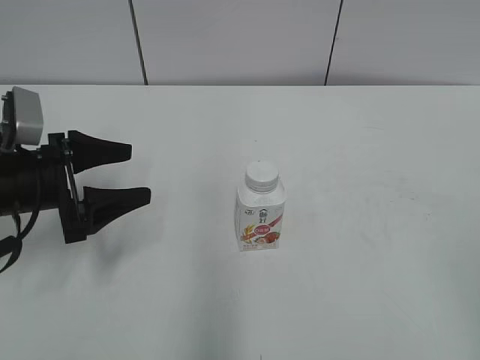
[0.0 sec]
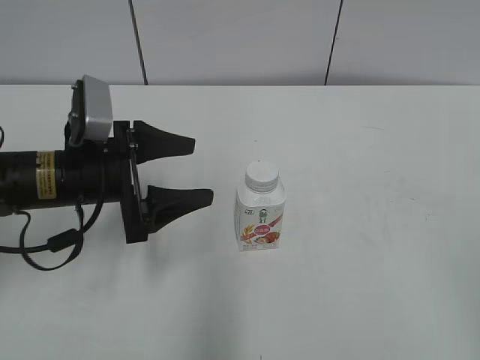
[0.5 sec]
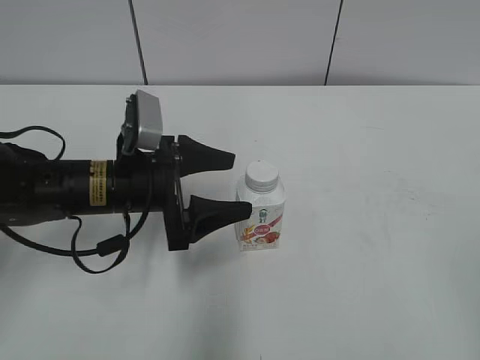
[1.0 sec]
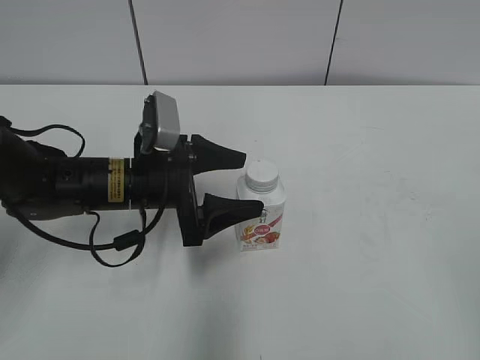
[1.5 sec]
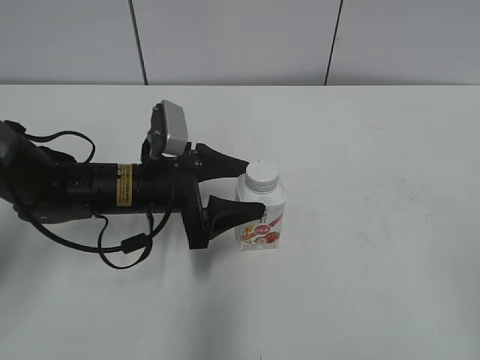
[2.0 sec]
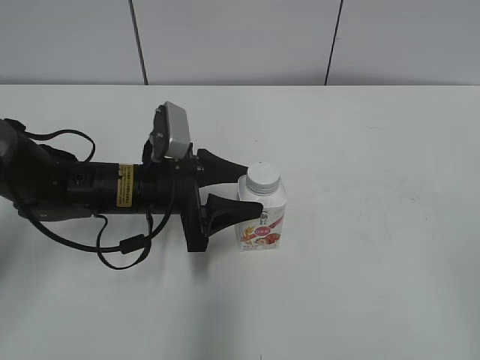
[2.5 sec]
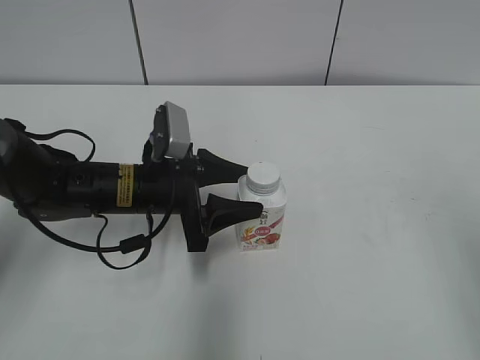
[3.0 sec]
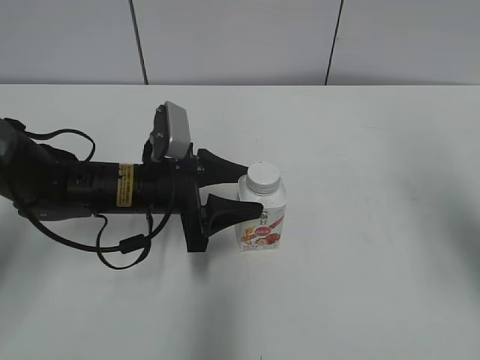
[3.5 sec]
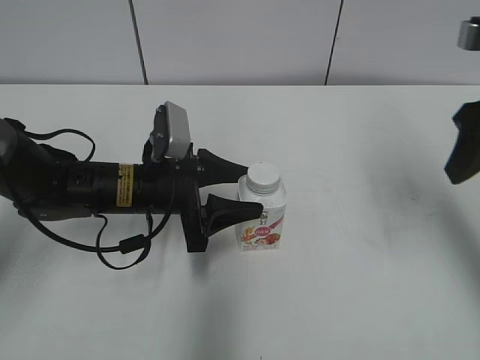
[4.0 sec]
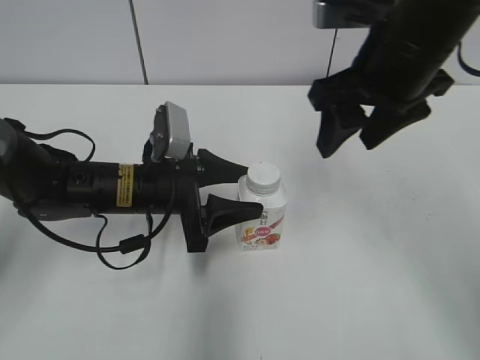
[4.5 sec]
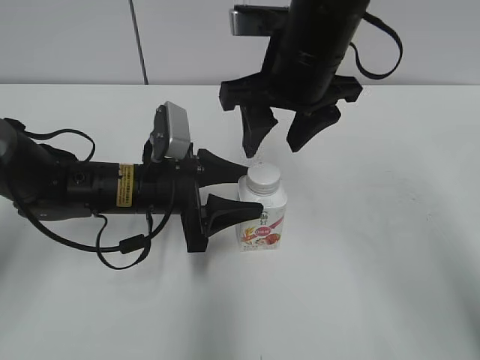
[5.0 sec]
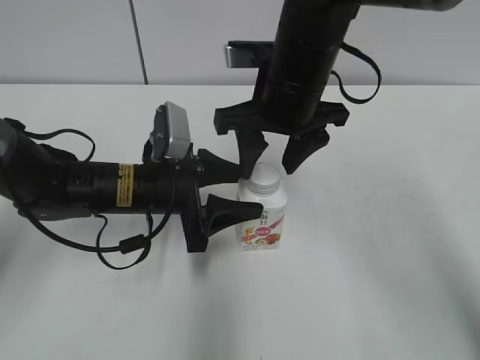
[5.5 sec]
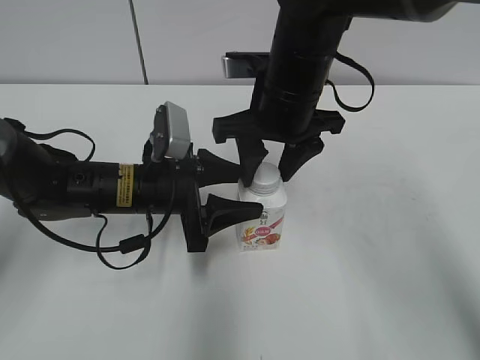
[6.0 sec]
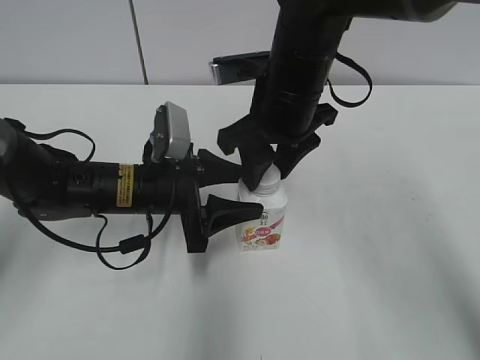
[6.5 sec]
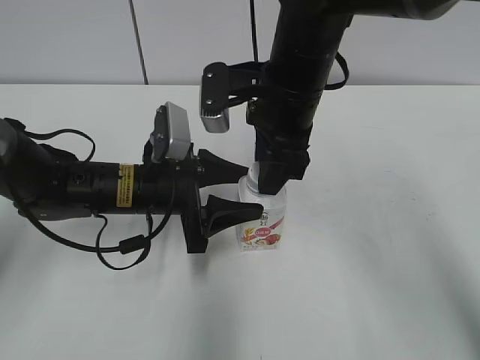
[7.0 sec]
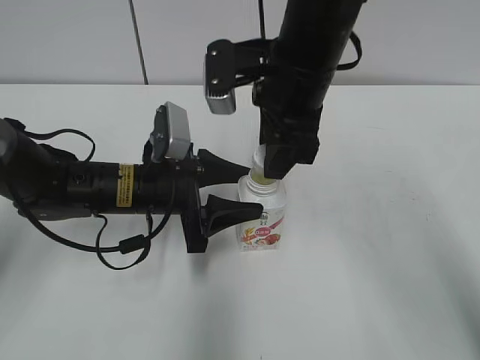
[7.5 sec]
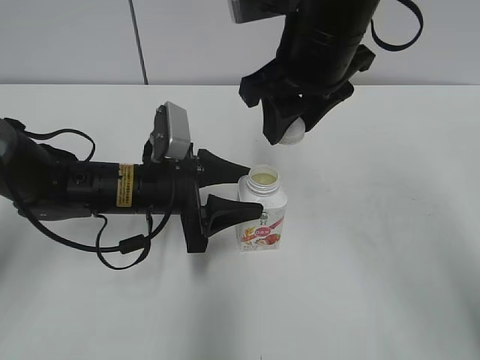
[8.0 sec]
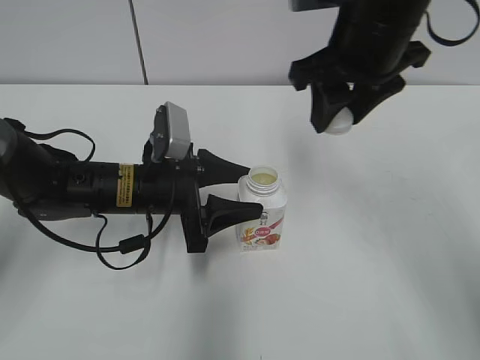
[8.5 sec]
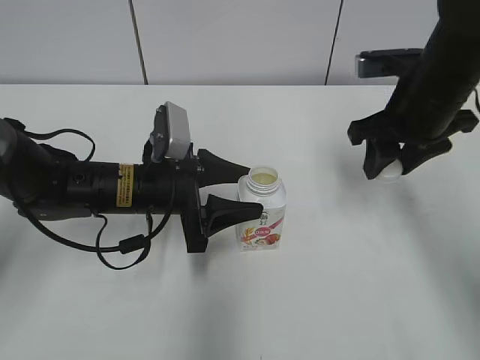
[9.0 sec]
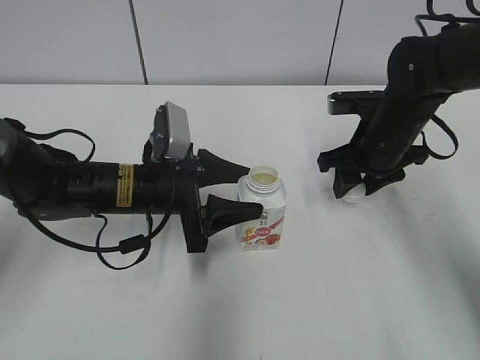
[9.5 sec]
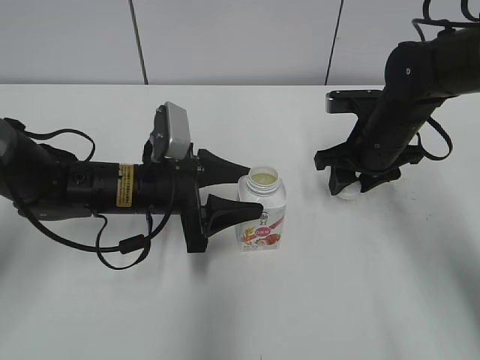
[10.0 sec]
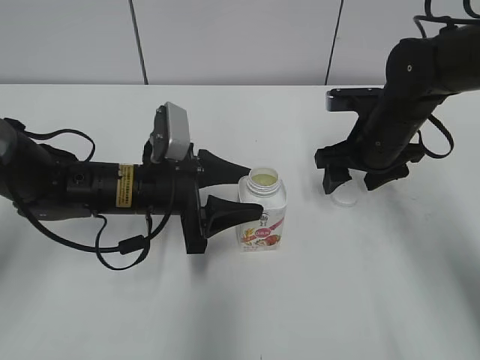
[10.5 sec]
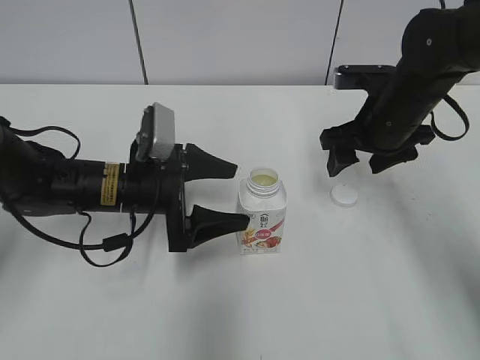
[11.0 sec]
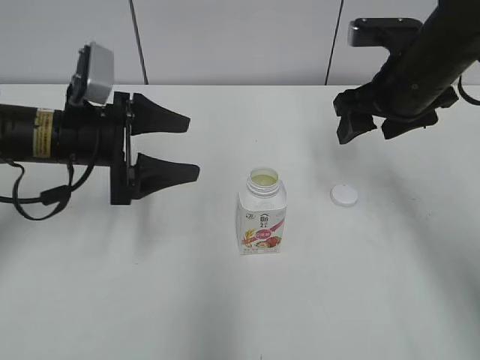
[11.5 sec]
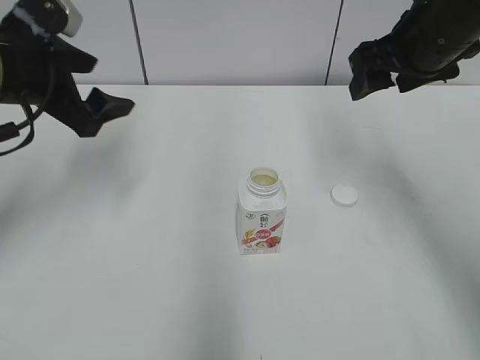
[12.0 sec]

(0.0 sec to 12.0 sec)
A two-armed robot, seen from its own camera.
Step, 0.0 sec - 2.0 sec: Grab the Yili Changqing with the left hand.
Step, 8.0 sec - 10.0 sec: Place the bottle cap on the right.
0.0 sec - 2.0 sec: The left gripper goes some 15 cm to the right, and closes.
2.0 sec - 4.0 sec: The left gripper closes up; the right gripper heads forward, covering about 30 cm, and closes its fingers.
4.0 sec - 6.0 sec: The right gripper moves to the left, roughly 20 cm.
6.0 sec - 8.0 sec: The right gripper goes approximately 5 cm upward.
8.0 sec - 10.0 sec: The right gripper is displaced downward and to the right by about 20 cm.
10.0 sec - 12.0 sec: The right gripper moves upward, some 15 cm, and opens, while the left gripper shifts approximately 20 cm upward and to the left, and opens up.

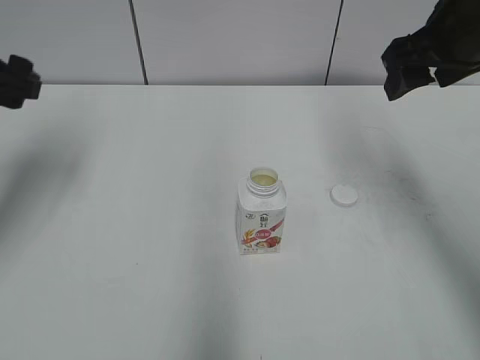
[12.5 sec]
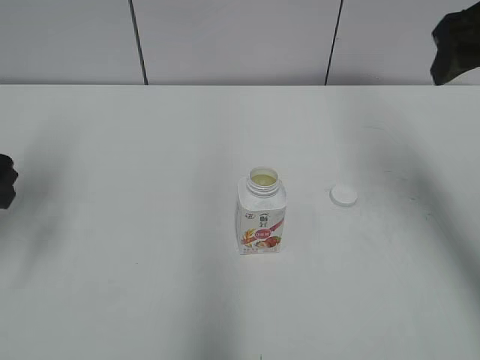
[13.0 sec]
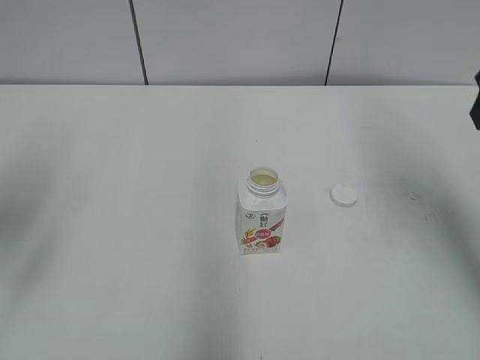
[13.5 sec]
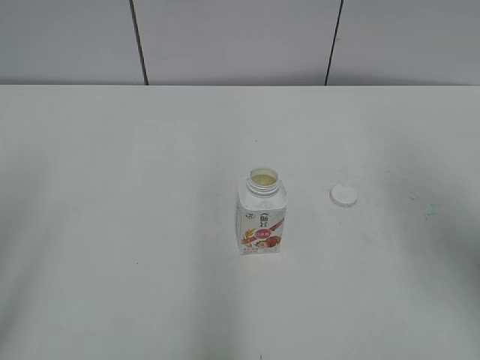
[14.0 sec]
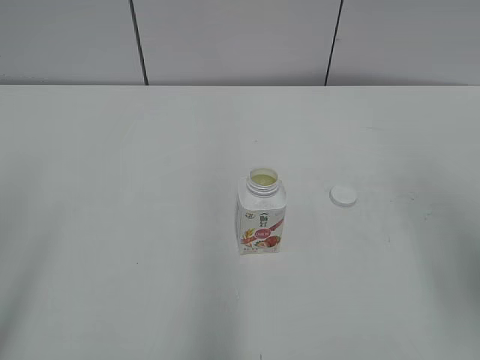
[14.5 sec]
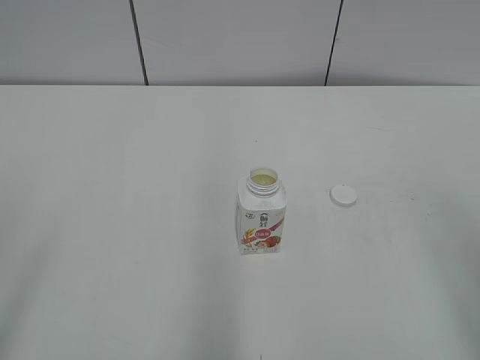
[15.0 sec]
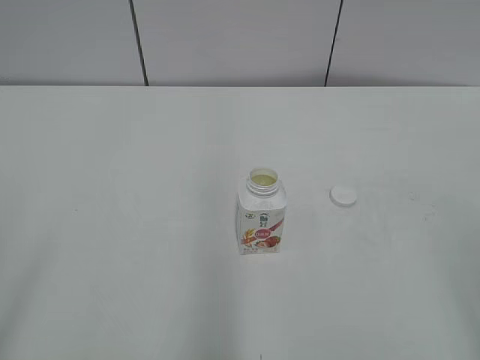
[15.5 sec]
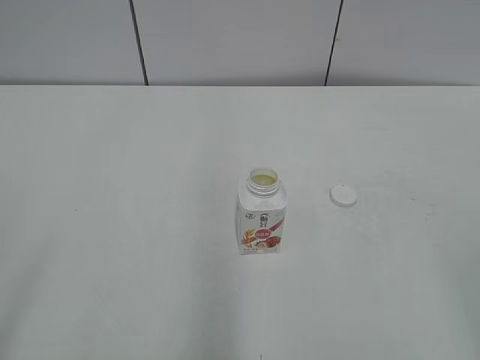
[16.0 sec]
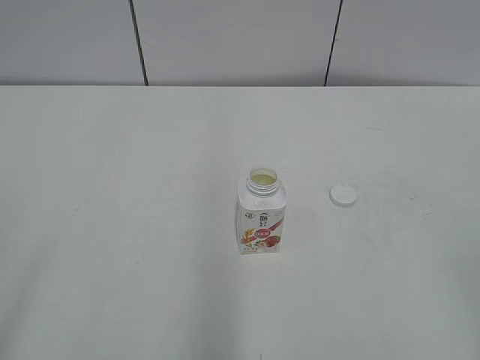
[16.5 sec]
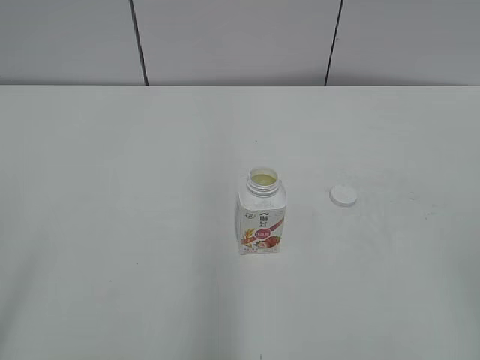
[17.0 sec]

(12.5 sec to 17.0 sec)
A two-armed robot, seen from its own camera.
12.5 sec - 14.5 sec: The grippers both shift backward by some 25 cm.

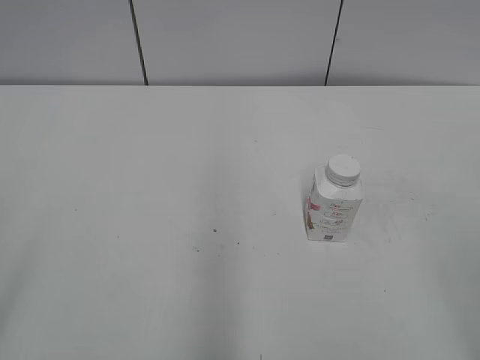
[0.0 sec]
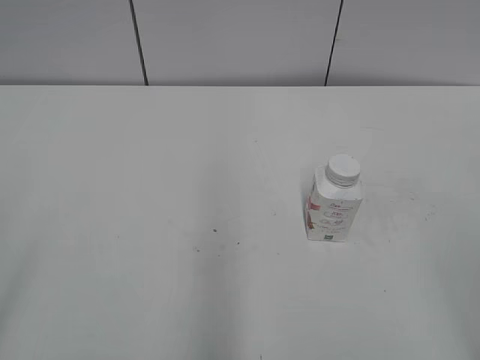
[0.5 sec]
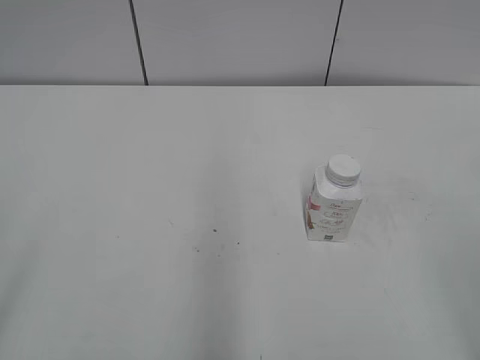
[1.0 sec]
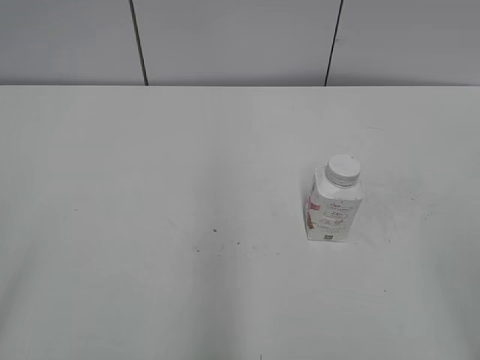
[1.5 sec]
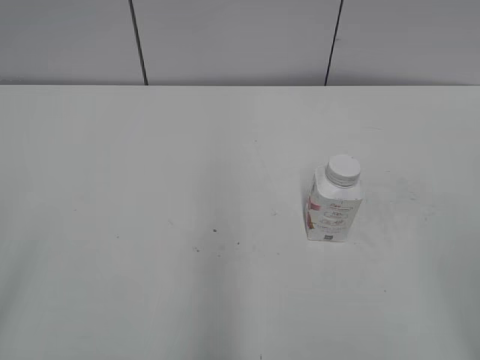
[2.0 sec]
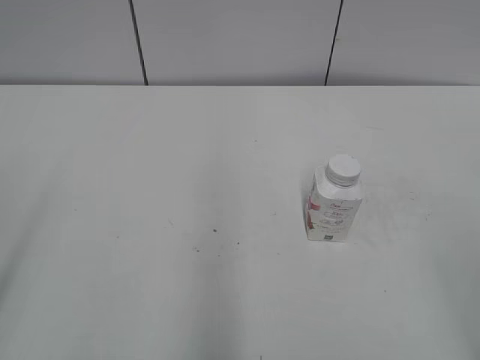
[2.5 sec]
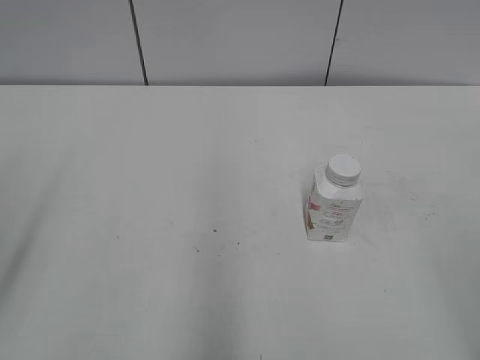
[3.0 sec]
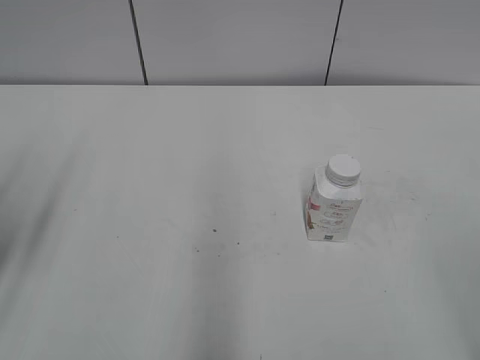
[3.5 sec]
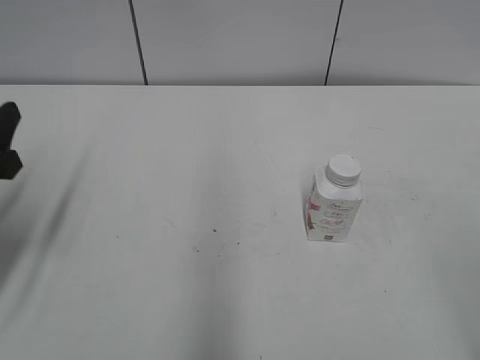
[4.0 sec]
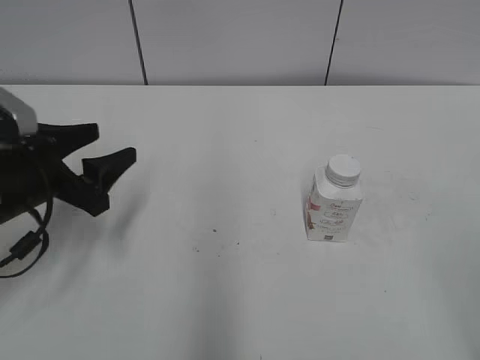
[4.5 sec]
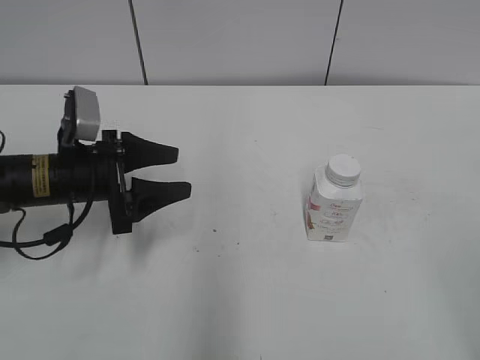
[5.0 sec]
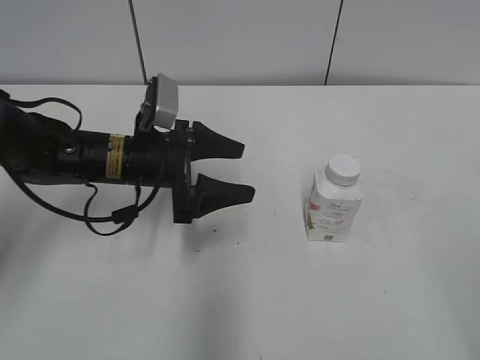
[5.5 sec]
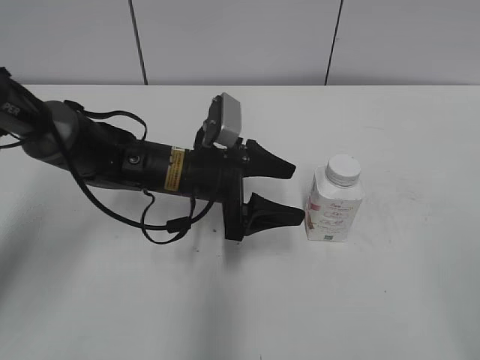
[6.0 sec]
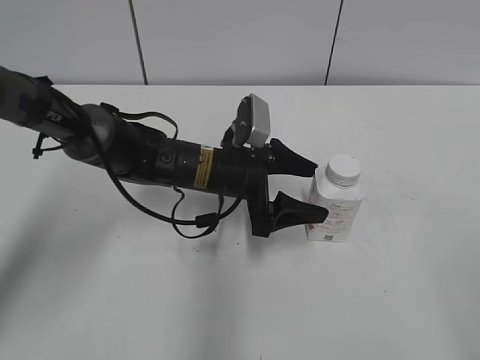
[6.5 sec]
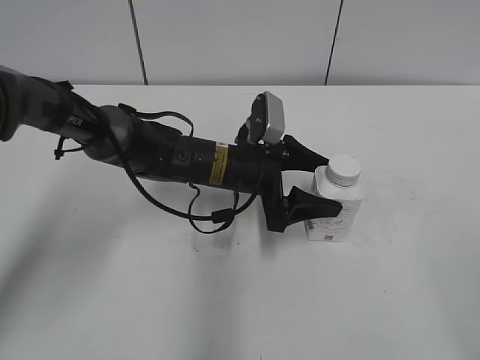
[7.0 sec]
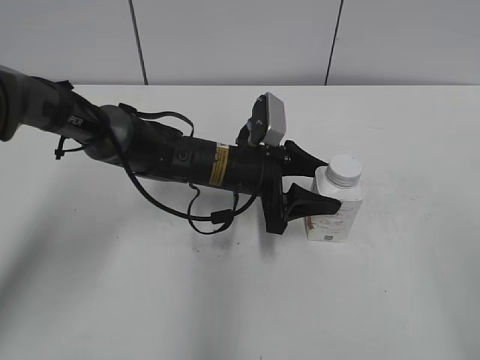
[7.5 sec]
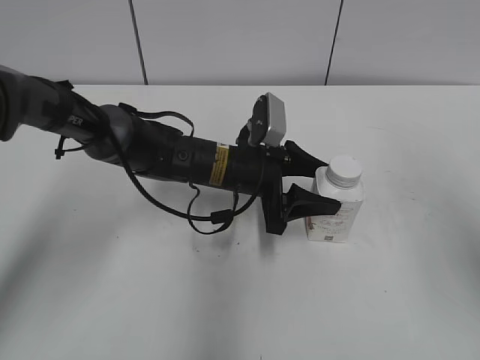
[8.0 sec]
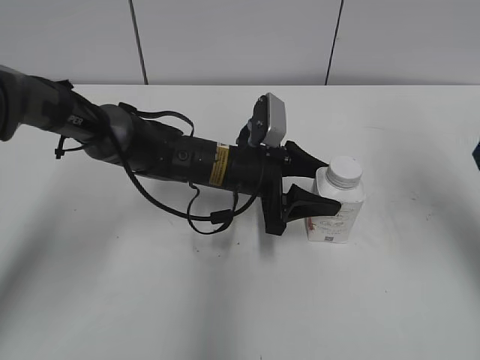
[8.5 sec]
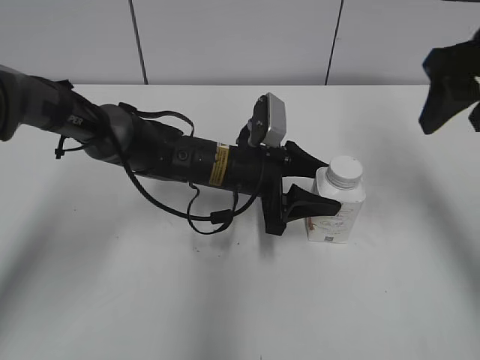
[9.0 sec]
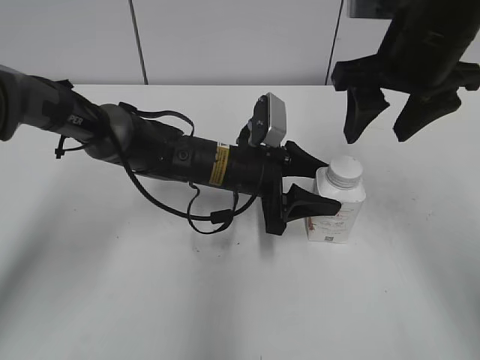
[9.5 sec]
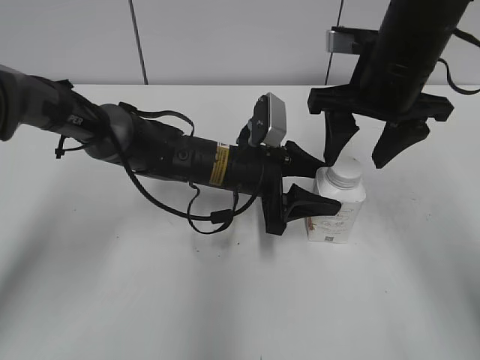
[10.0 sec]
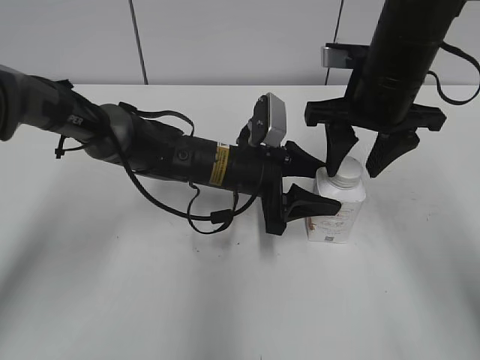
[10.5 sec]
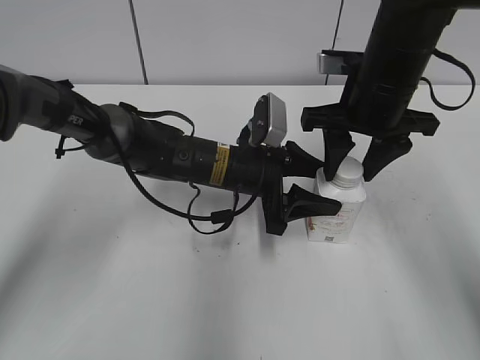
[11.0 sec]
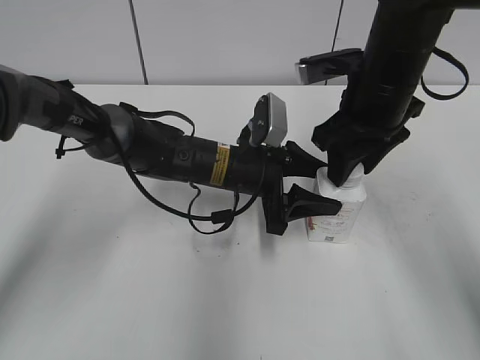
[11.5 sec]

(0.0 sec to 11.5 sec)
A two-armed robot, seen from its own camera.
Step, 0.0 sec - 7.0 sec: Grab the Yili Changqing with the left hand.
2.0 sec - 4.0 sec: The left gripper goes some 25 cm forward and downward, and closes.
4.0 sec - 6.0 sec: The left gripper moves to the right and forward, some 25 cm, and opens up.
6.0 sec - 7.5 sec: The left gripper shifts approximately 5 cm to the right, and closes up.
7.5 sec - 9.5 sec: The right gripper goes some 35 cm forward and to the left.
9.5 sec - 11.5 sec: The right gripper shifts about 5 cm downward, and closes its fingers.
